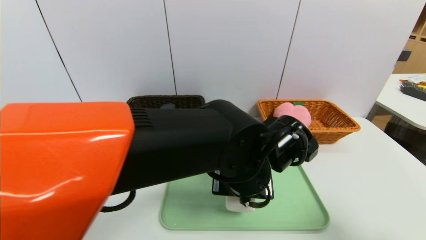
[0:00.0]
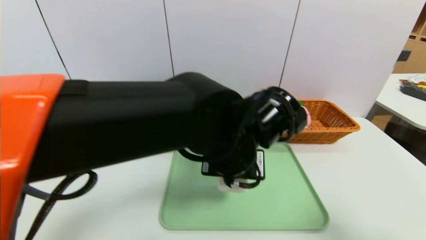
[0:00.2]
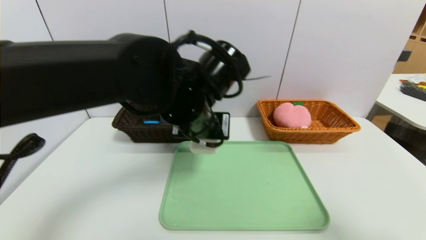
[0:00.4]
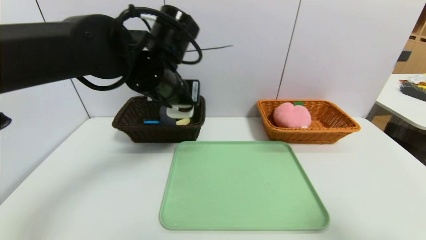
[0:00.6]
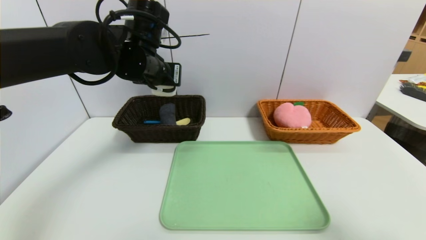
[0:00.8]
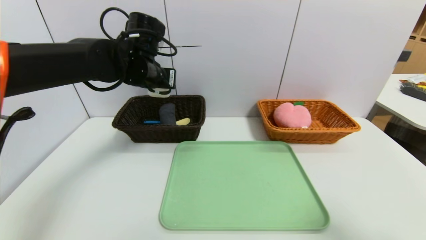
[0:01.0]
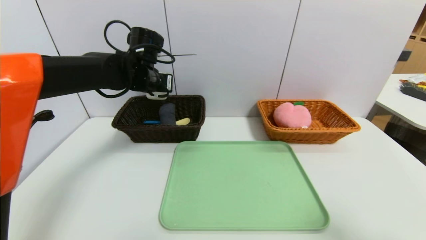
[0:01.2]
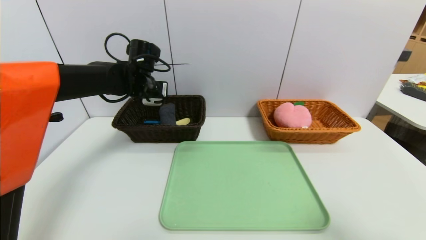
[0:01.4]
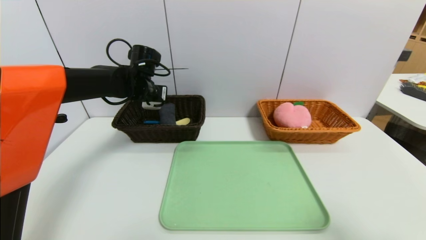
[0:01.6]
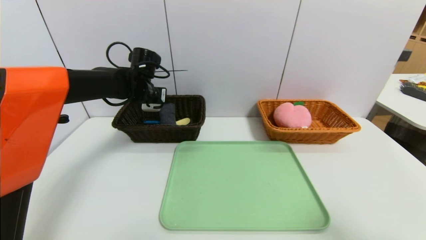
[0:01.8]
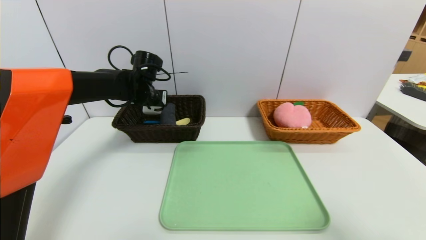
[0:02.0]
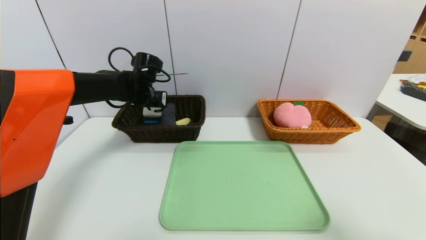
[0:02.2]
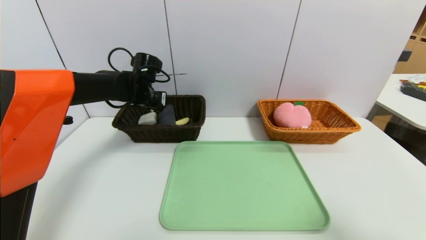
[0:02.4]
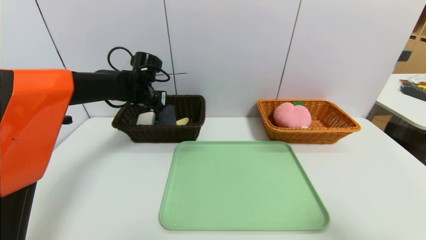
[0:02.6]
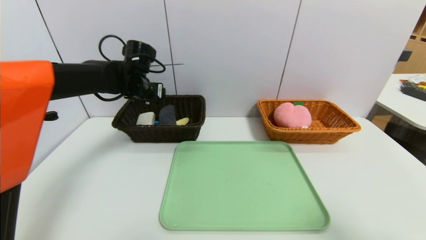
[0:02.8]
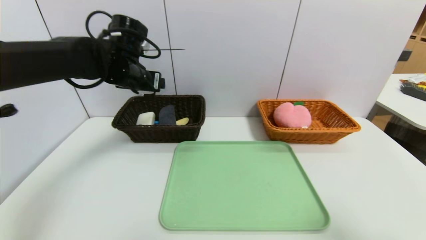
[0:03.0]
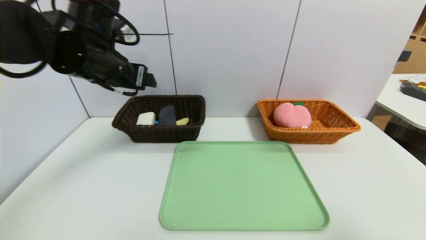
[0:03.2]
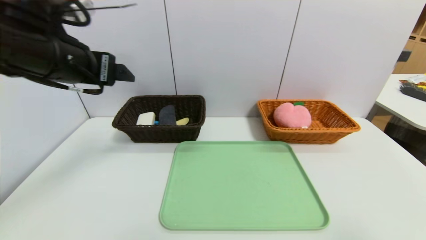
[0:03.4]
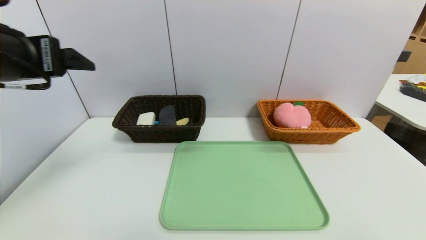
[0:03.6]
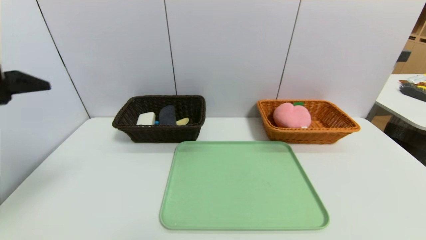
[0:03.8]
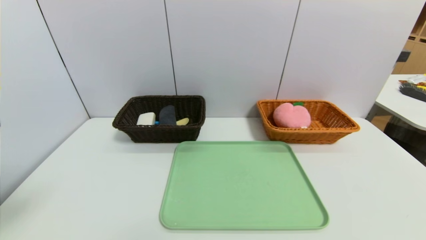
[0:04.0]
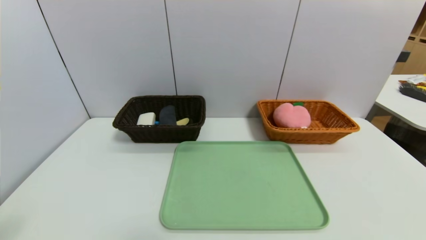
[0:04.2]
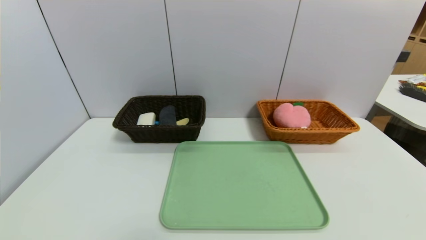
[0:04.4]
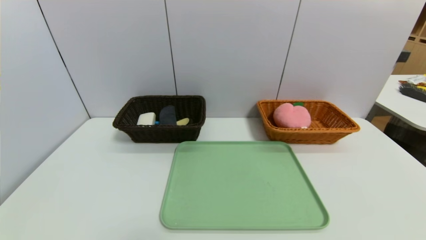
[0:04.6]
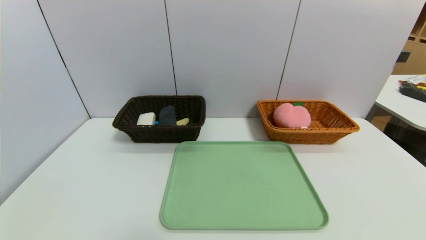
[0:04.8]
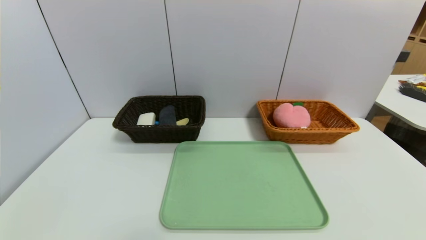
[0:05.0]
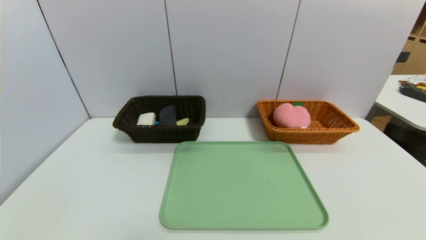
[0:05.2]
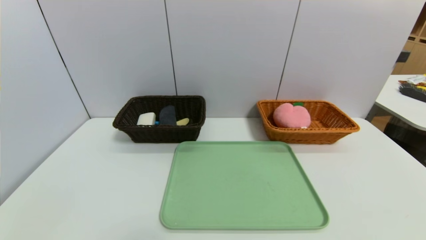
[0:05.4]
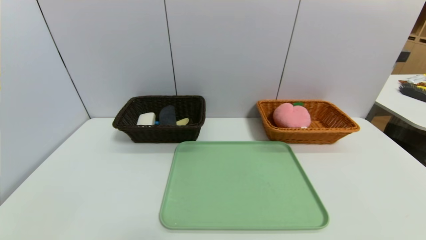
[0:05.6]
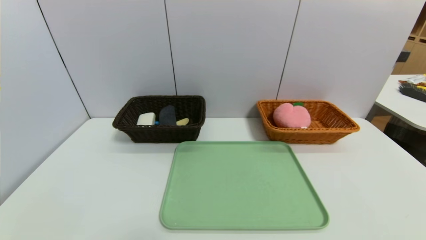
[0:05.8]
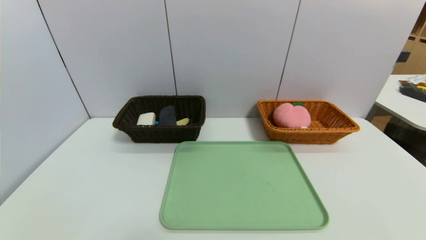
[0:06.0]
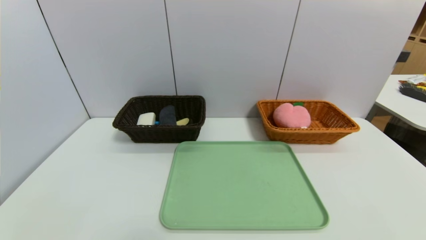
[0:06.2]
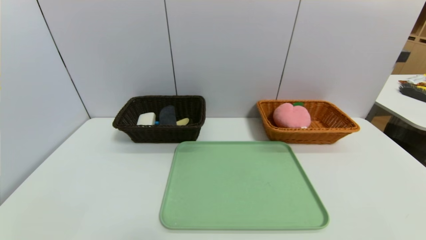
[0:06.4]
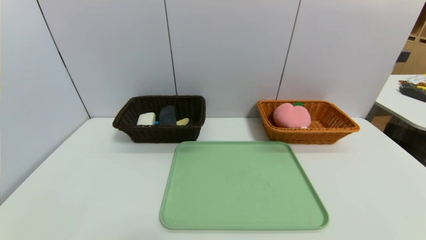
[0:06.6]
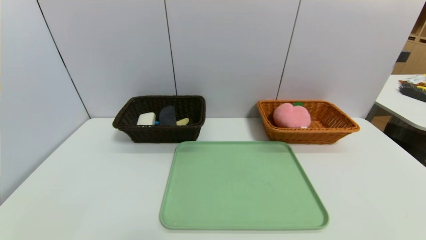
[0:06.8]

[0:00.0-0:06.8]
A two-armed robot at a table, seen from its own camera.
Task of the whole recording: place the food in the right basket with the right gripper, and place the non food items in the left basket with the left gripper.
Step, 0:00.0 to 0:02.8: Grasp the soap and put it in the left basket.
0:00.0 to 0:01.4: The left gripper heads forward and to the left, covering roughly 30 cm.
0:01.4 to 0:02.8: The left gripper opens up.
0:02.8 to 0:04.0: The right gripper is displaced backward and downward by approximately 15 cm; the left gripper travels backward by roughly 35 cm.
